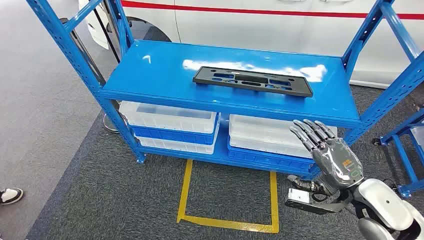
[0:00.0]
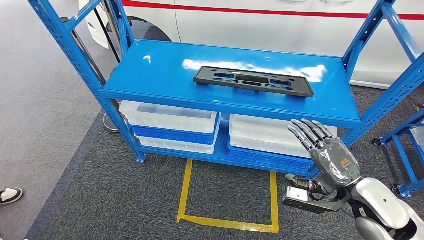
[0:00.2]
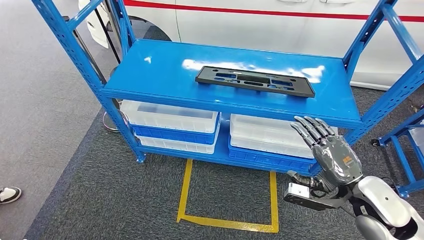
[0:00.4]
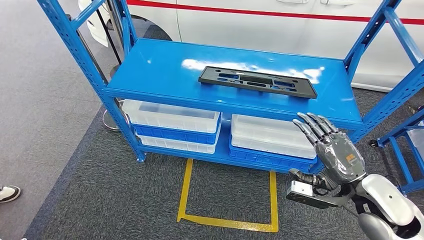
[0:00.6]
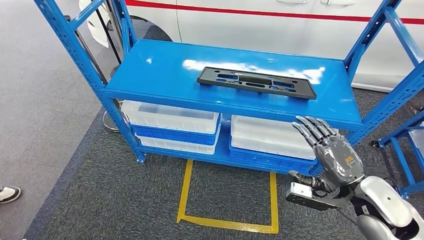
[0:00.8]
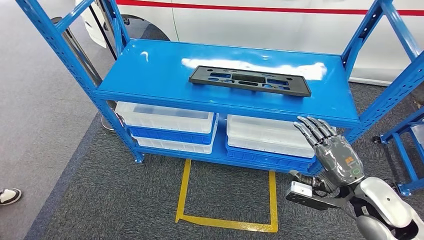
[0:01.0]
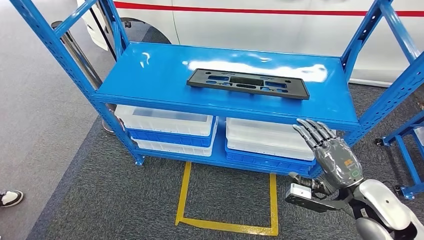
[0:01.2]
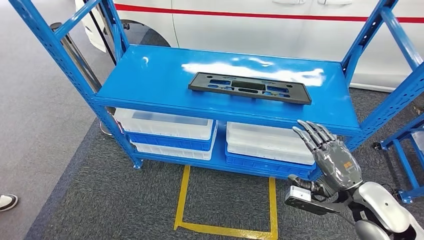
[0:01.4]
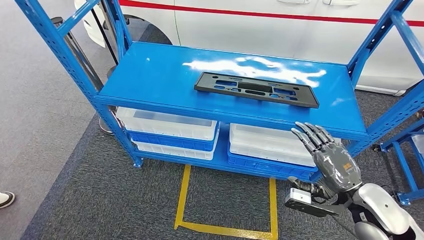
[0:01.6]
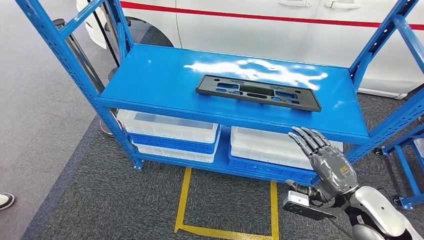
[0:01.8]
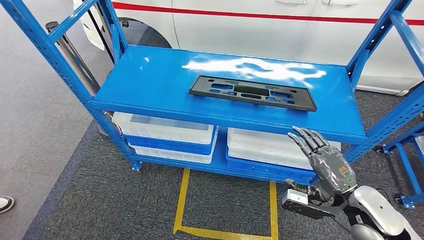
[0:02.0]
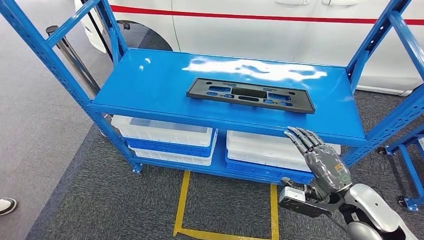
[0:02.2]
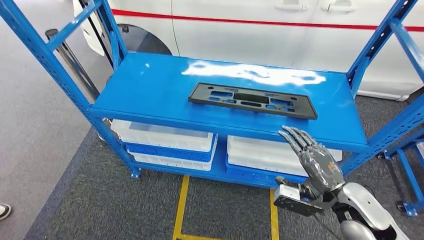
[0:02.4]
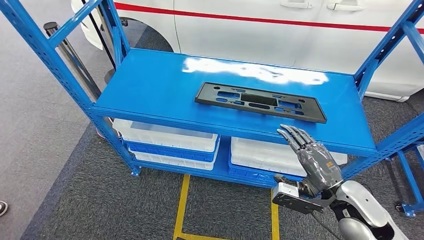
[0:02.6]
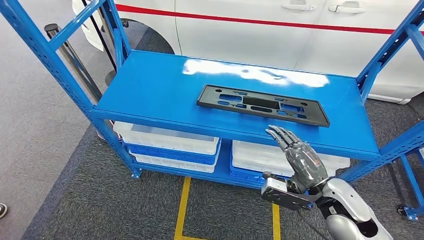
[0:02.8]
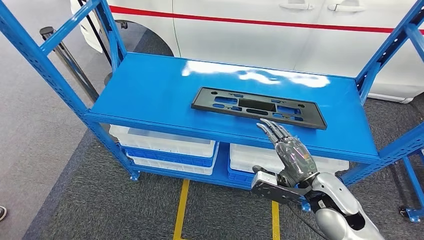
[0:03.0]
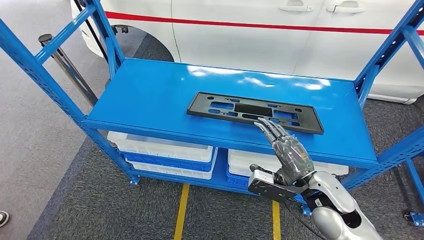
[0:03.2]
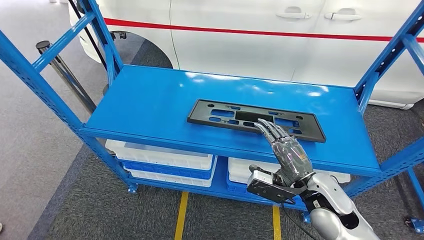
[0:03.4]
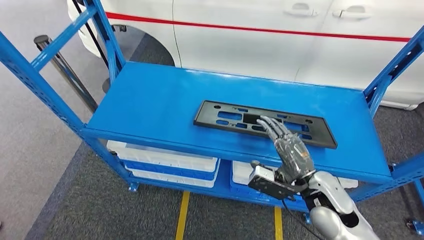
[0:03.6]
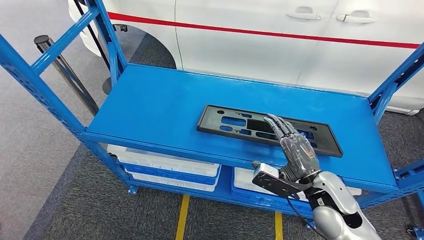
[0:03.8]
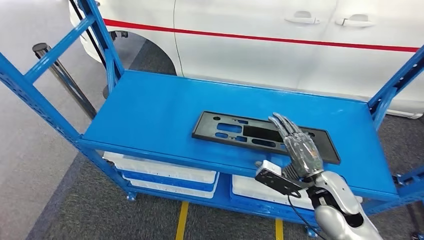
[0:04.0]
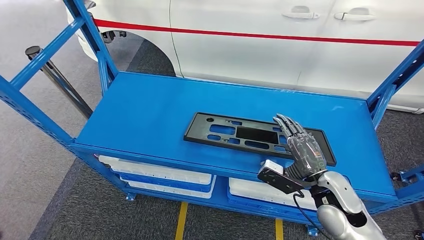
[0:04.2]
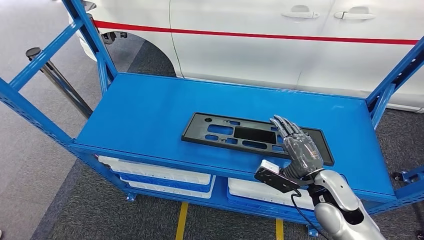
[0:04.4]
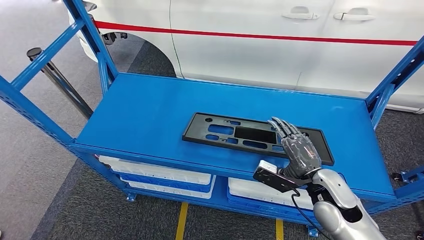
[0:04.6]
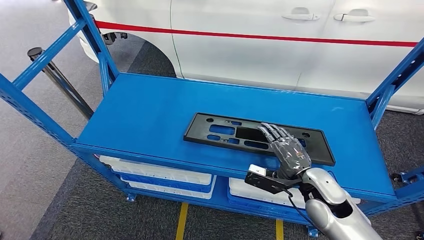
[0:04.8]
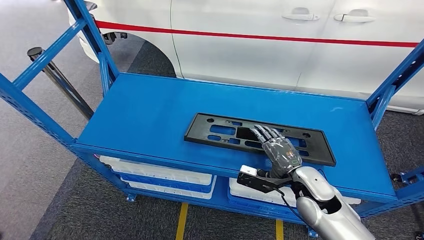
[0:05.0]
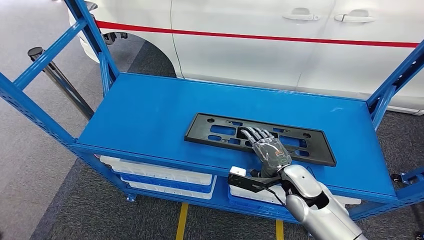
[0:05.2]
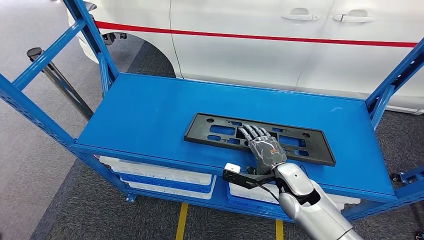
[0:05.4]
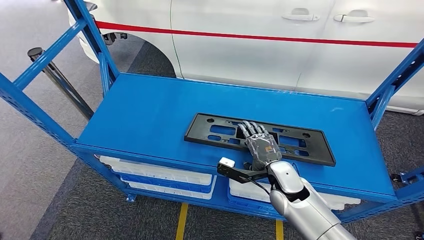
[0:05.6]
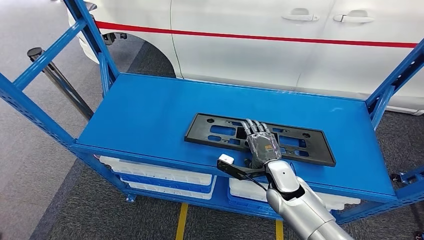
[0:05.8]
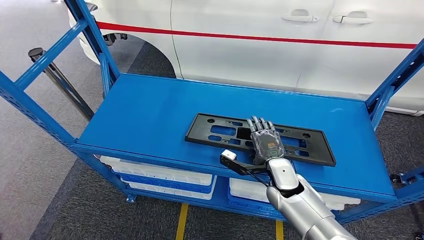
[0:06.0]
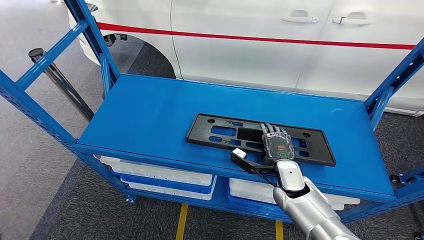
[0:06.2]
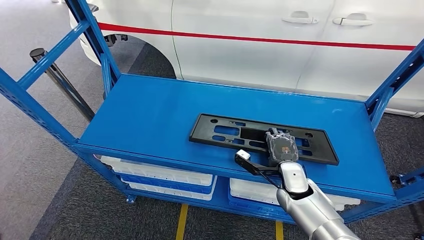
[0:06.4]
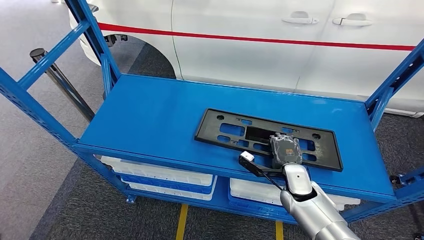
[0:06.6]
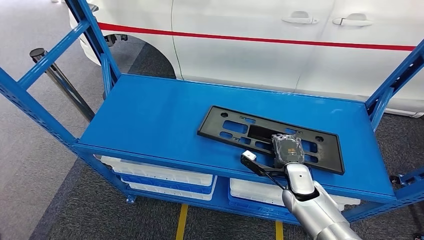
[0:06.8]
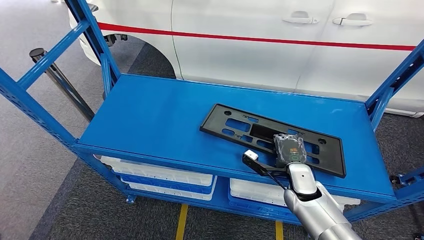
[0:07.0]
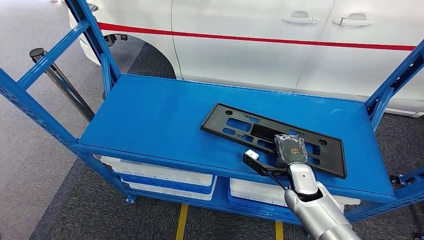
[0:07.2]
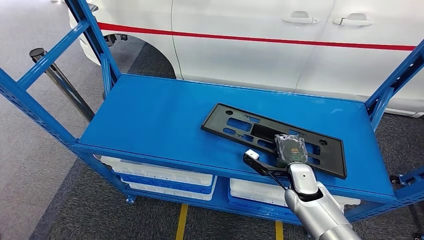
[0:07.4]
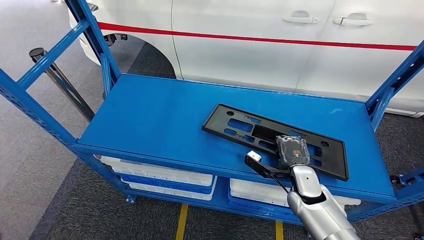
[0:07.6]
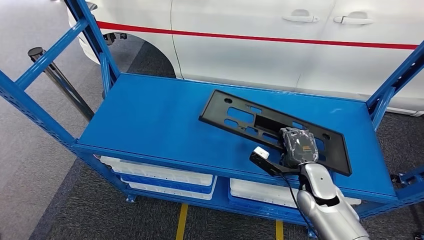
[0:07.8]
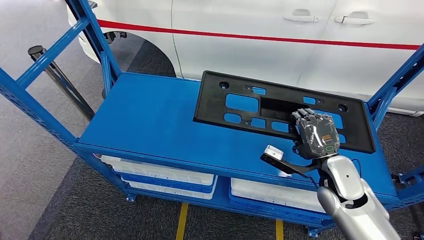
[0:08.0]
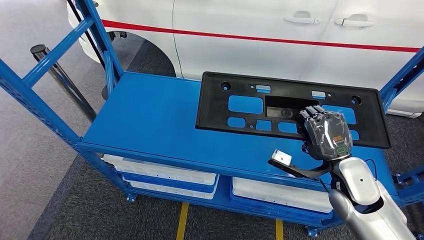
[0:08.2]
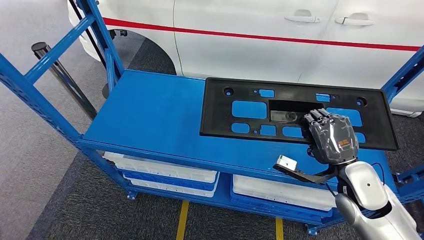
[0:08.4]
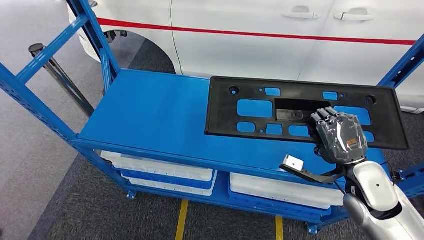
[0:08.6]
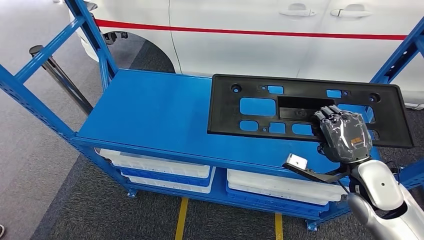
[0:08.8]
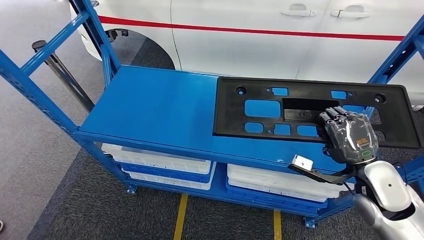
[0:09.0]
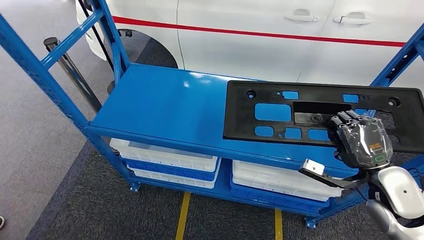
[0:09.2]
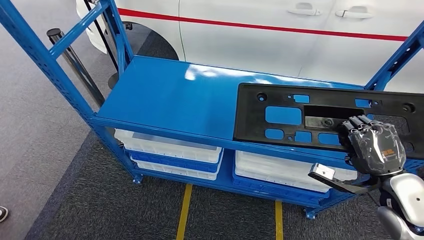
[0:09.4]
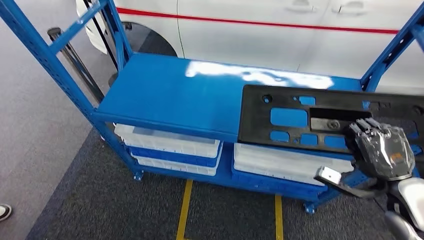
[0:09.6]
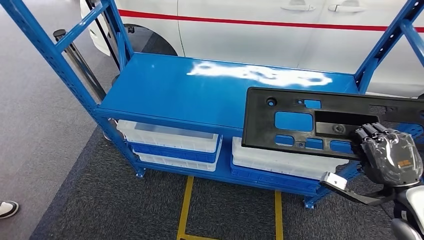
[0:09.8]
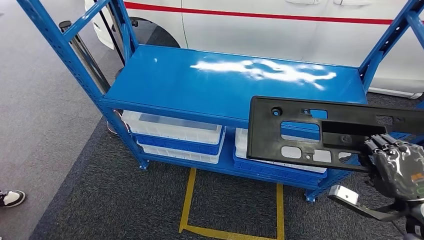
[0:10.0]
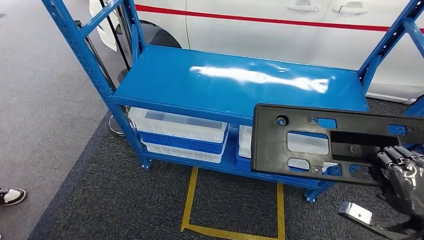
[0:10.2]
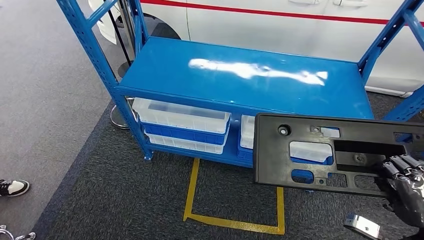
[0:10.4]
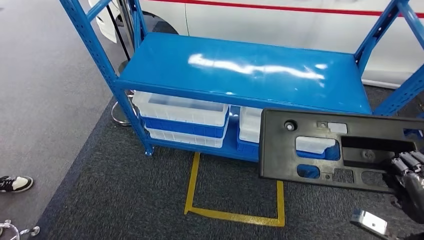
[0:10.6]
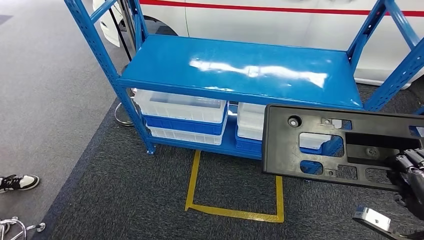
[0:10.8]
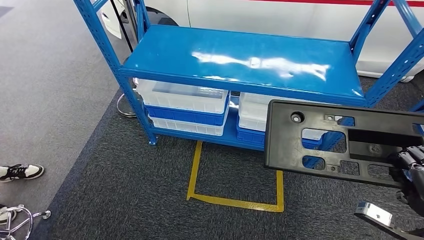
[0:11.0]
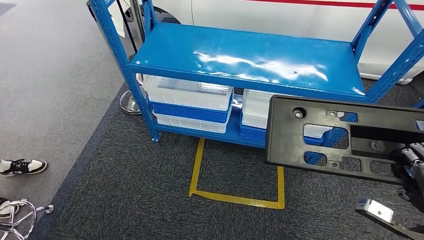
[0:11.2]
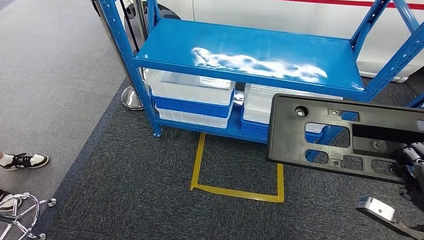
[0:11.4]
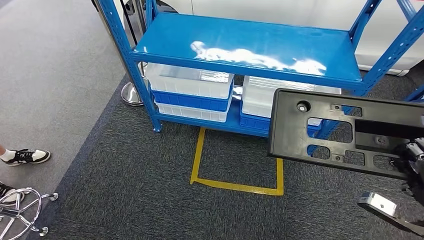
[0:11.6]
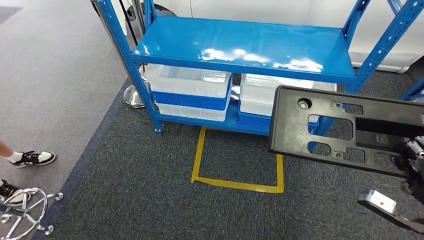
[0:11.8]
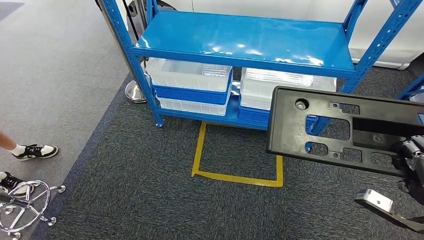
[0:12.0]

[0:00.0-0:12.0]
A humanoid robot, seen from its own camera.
Step, 0:00.0 to 0:08.4: Pick up the large material from the shelf.
0:04.4 to 0:06.0: The right hand travels to the left and downward by approximately 10 cm.
0:06.0 to 0:07.6: The right hand moves to the right, about 5 cm.

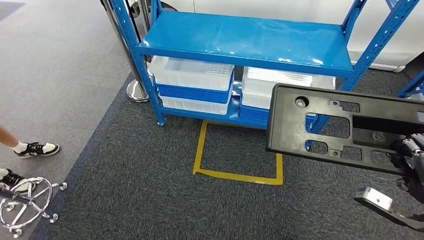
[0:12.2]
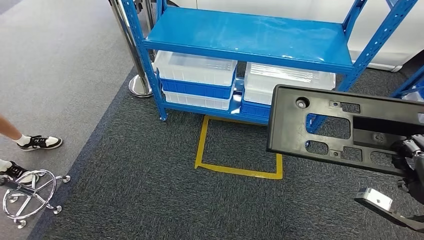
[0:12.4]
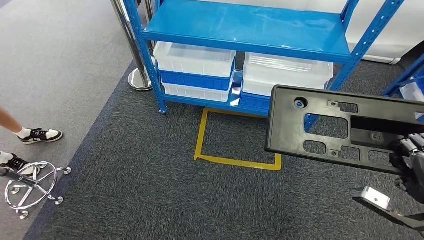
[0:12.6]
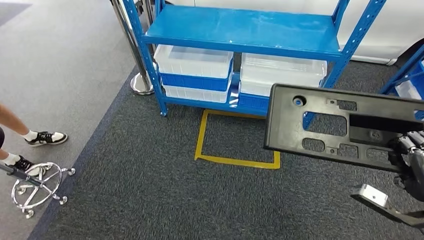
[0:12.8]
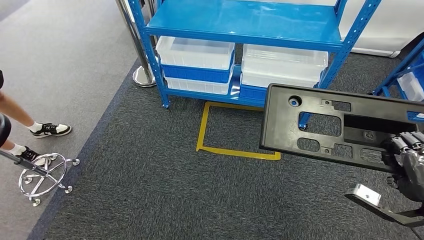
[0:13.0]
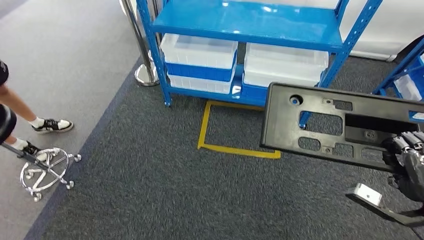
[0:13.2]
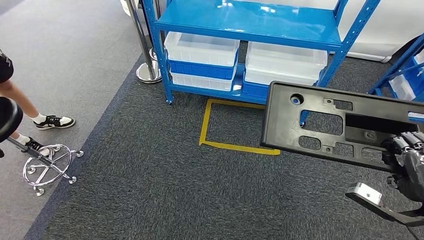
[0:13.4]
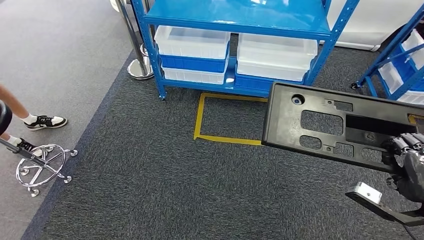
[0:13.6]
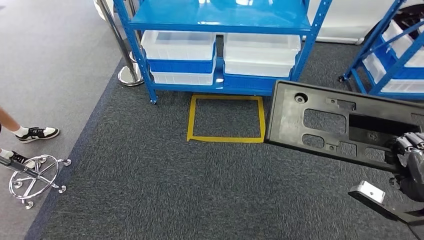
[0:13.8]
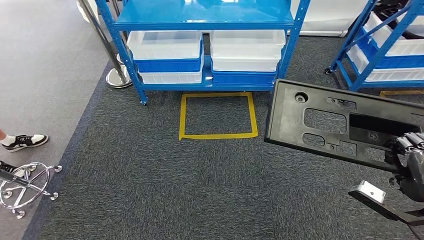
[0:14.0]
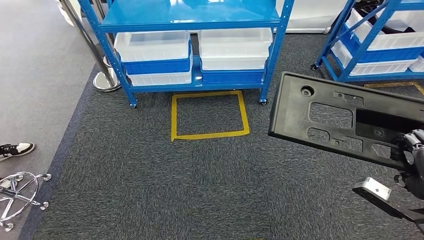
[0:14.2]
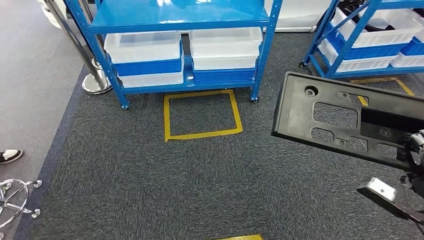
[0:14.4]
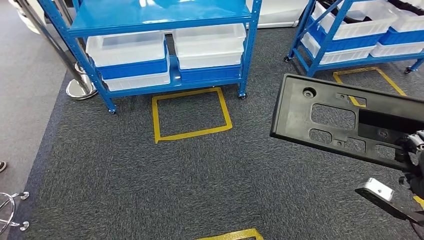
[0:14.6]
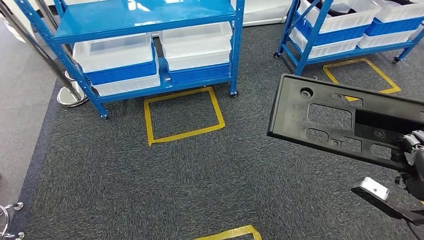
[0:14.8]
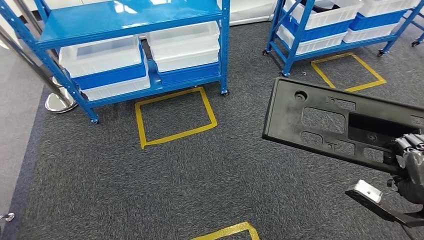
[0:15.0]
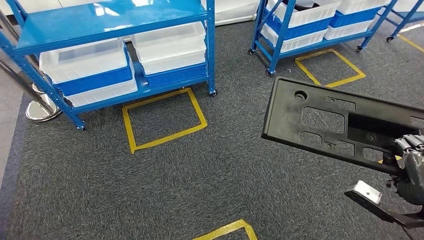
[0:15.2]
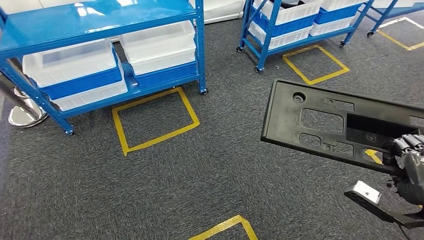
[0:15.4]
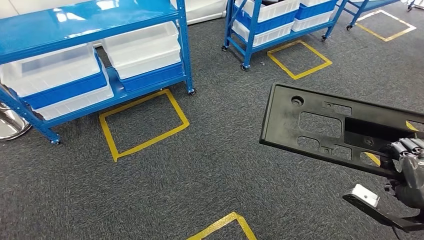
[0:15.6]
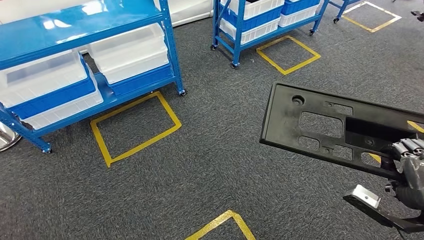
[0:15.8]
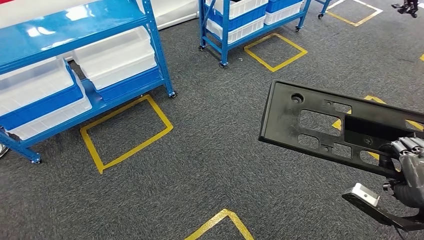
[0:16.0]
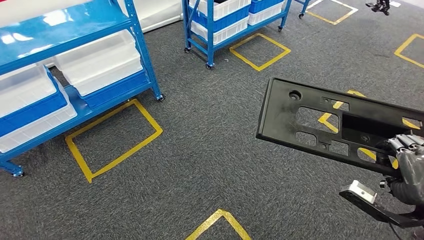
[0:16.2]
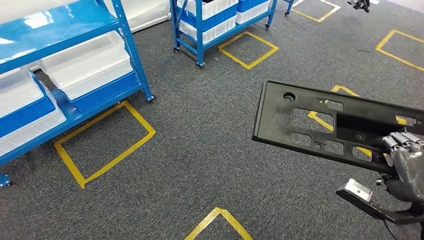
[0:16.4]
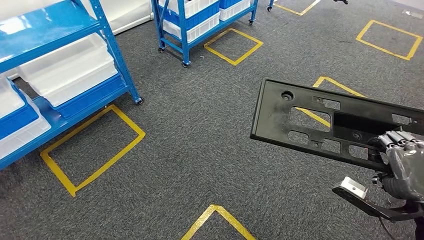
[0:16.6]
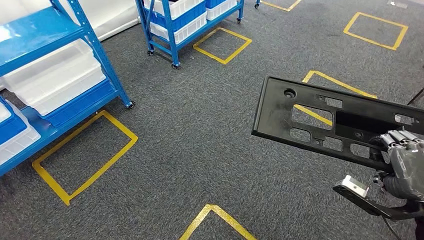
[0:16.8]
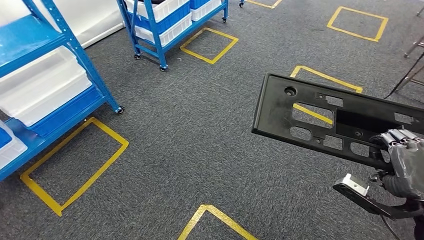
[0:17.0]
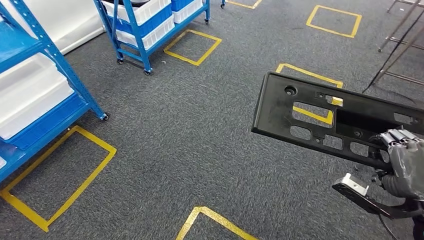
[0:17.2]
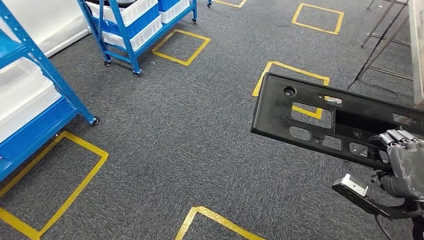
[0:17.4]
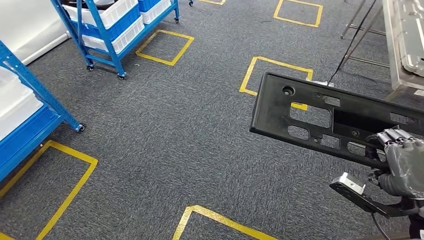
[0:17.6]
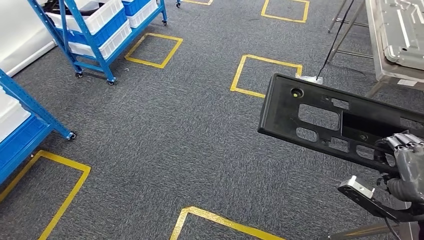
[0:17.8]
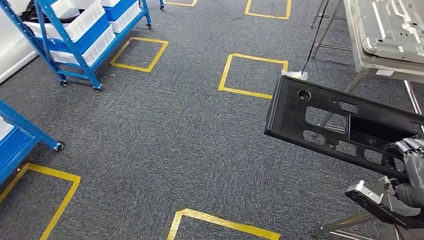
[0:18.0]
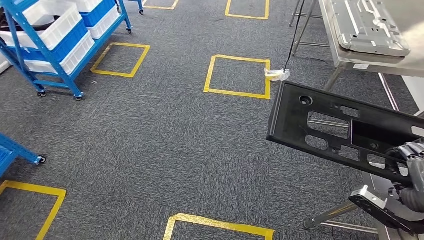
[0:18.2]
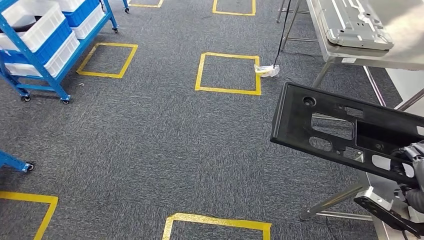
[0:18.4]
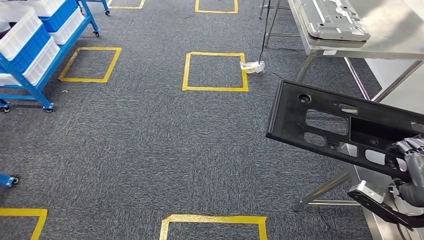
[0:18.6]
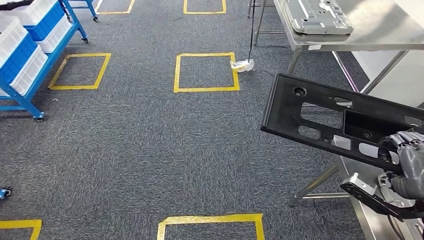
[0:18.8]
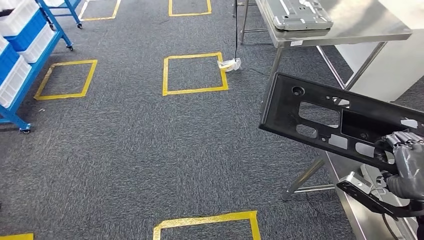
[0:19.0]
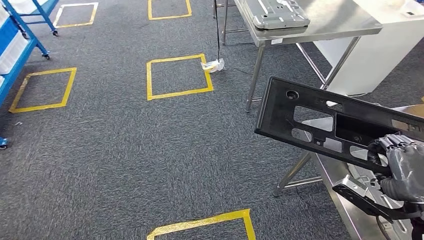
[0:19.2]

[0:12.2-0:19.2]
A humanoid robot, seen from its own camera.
Step, 0:12.2 to 0:18.4: Move the large material to the front of the workbench.
